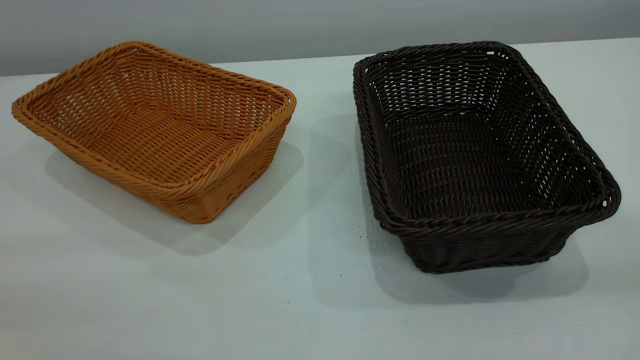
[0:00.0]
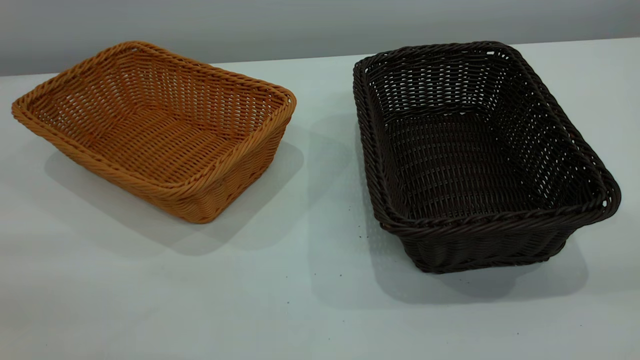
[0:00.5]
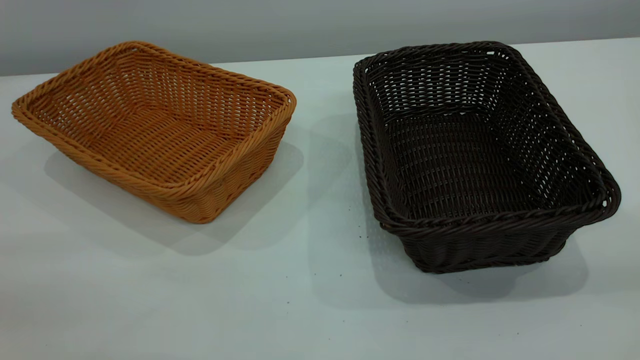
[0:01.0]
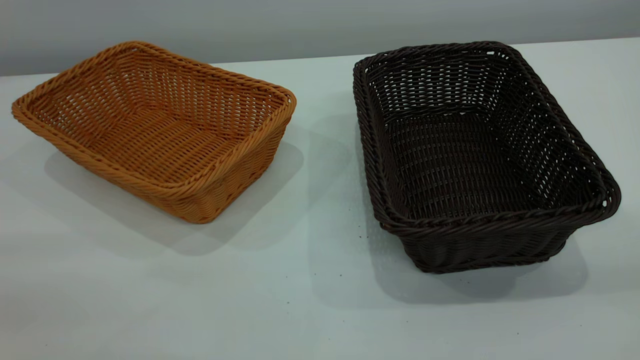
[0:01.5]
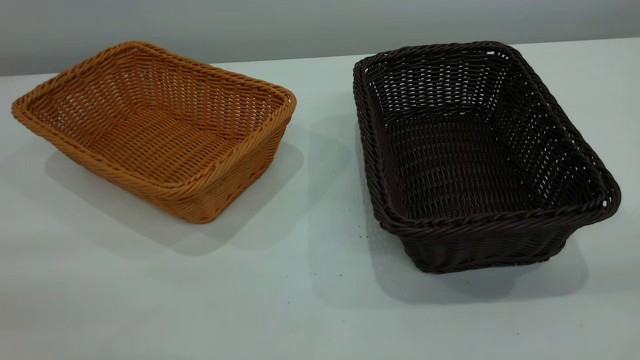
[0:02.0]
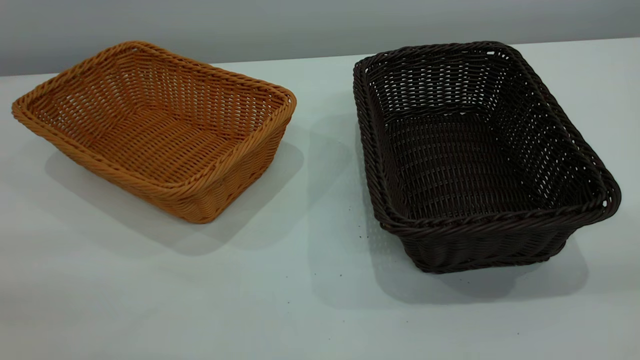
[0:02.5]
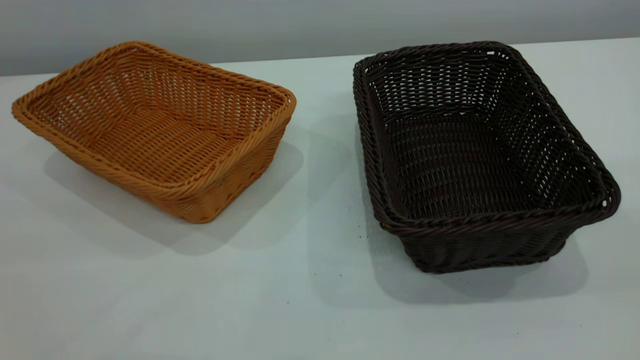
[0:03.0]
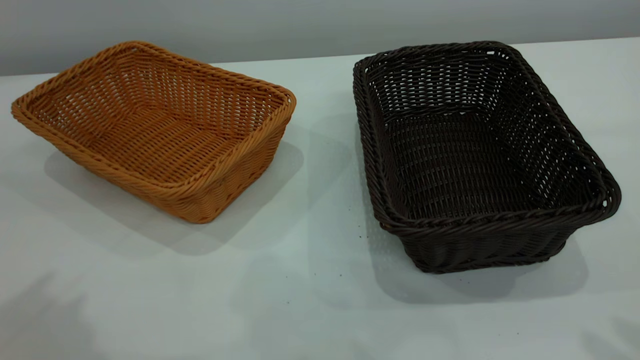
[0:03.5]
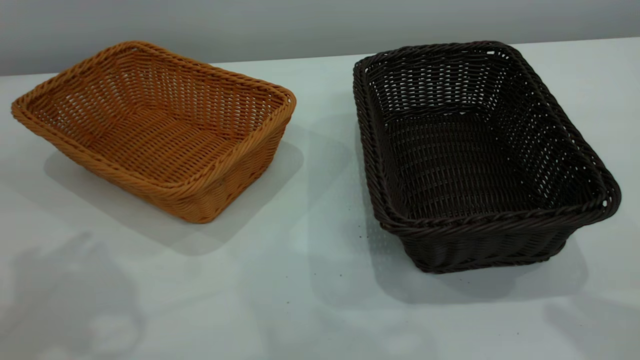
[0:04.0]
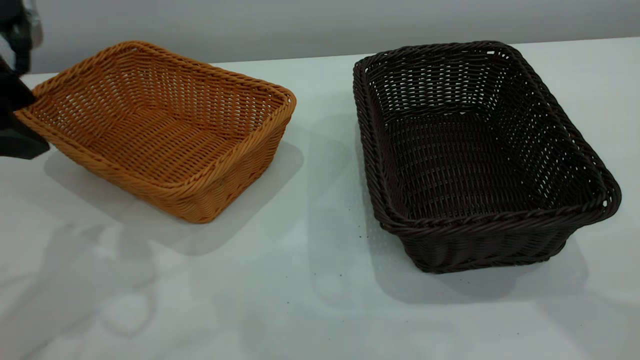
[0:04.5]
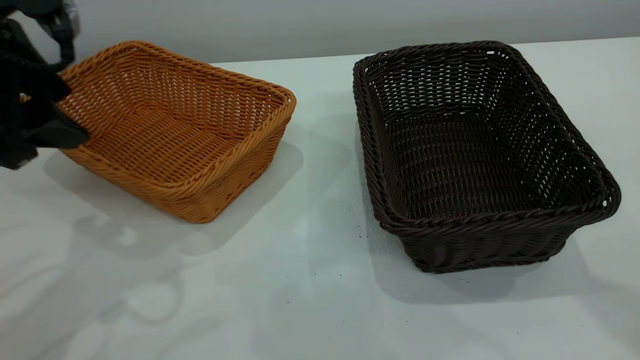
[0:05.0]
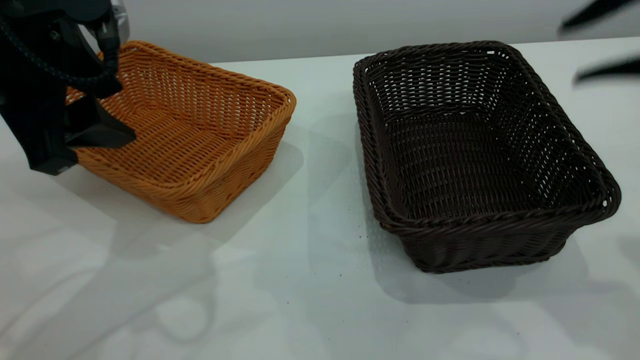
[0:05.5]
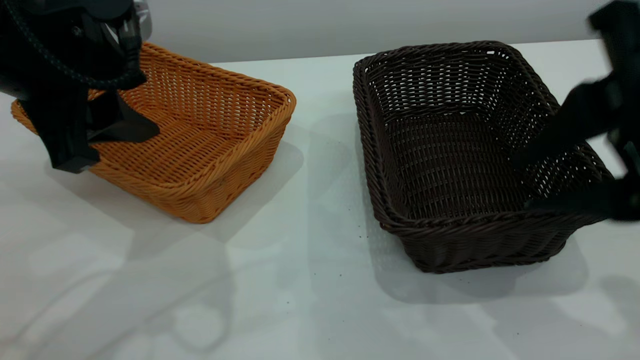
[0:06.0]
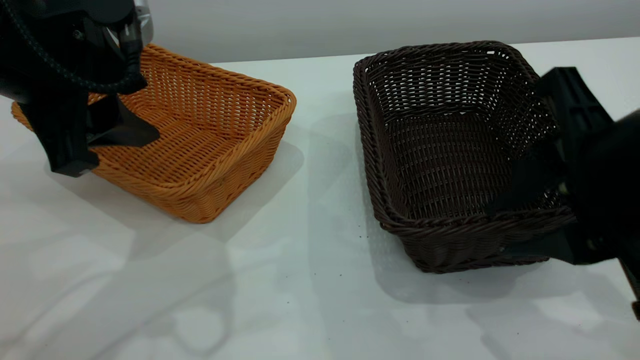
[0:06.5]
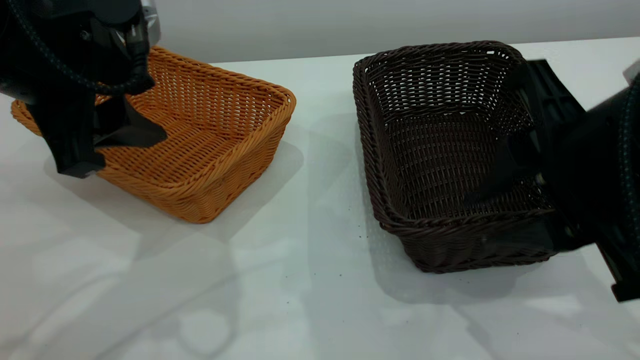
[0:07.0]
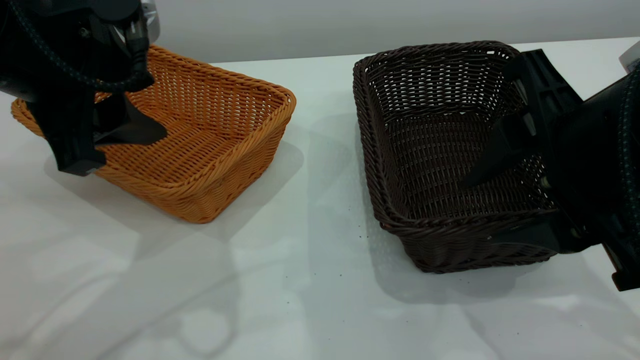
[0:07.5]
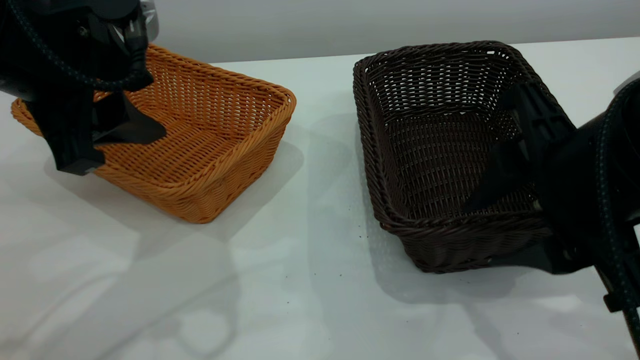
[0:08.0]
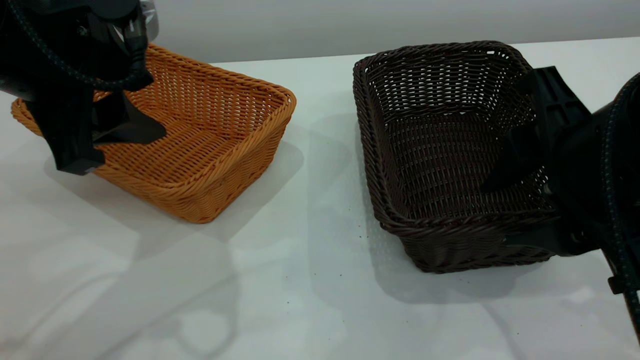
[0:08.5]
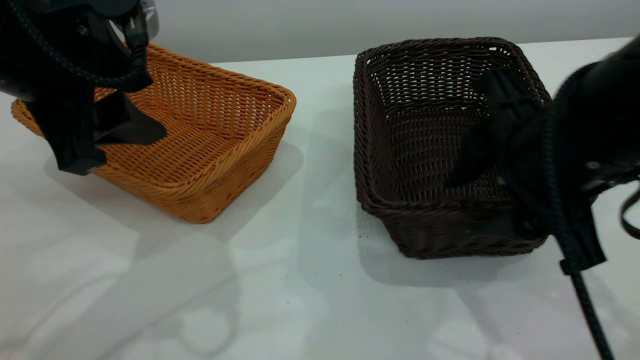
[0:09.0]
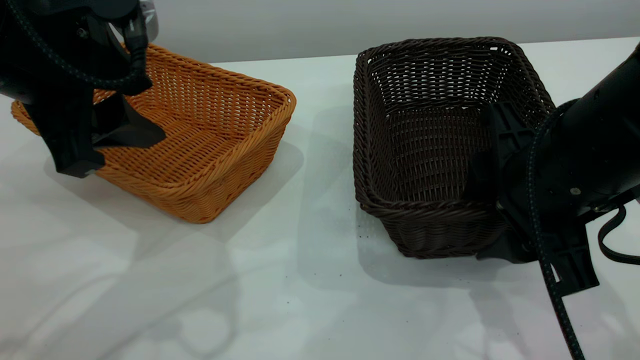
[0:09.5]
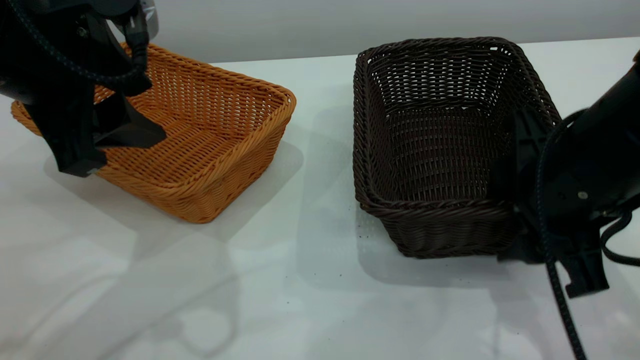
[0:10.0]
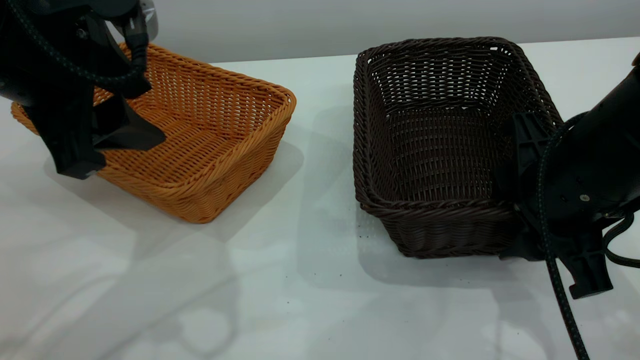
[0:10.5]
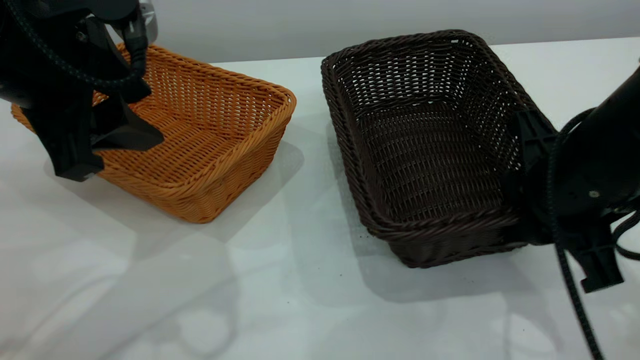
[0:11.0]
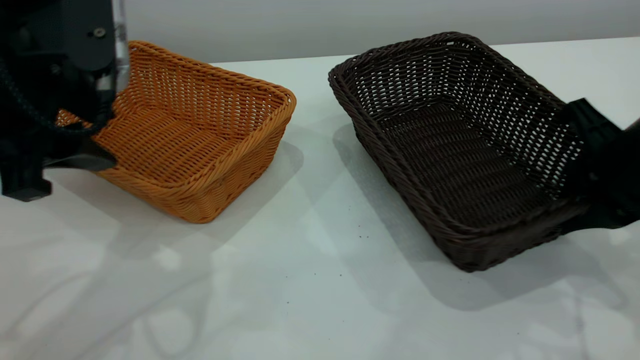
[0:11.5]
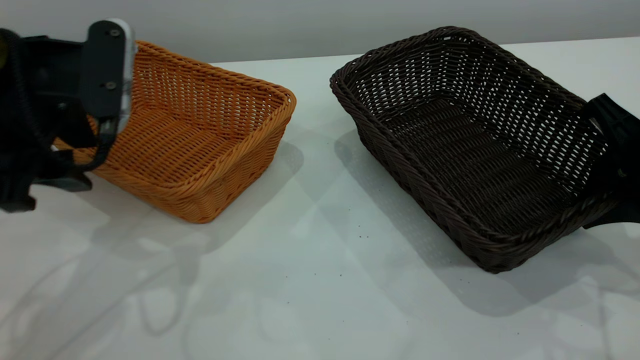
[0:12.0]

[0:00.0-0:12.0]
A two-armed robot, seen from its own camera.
Task of the whole recording: the left gripper grasp the brown basket and place it in the center of the table, the right gripper grasp the black basket and place it inside the brown one.
0:00.0 to 0:02.0: Both grippers stay put.
0:04.0 to 0:06.0: The left gripper travels to the right and downward by approximately 10 cm. The right gripper moves downward and to the left, some 15 cm.
0:06.0 to 0:08.0: The grippers stay close to where they were, moving slightly.
0:08.0 to 0:10.0: The right gripper changes place by about 5 cm.
0:10.0 to 0:12.0: The right gripper is displaced to the right by about 10 cm, and closes up. Meanwhile the left gripper moves roughly 5 cm.

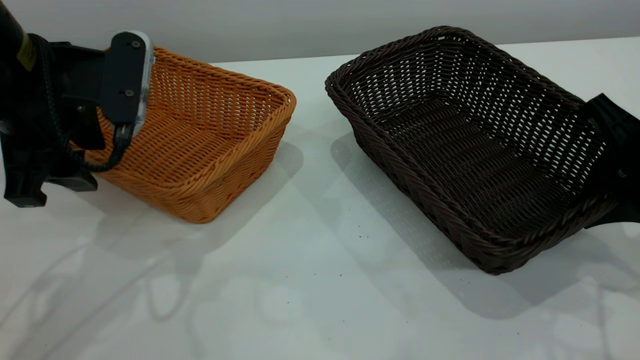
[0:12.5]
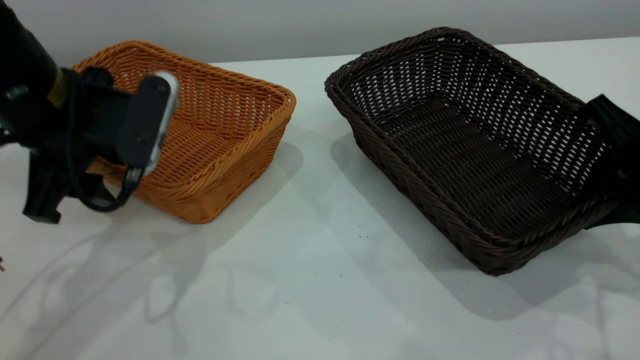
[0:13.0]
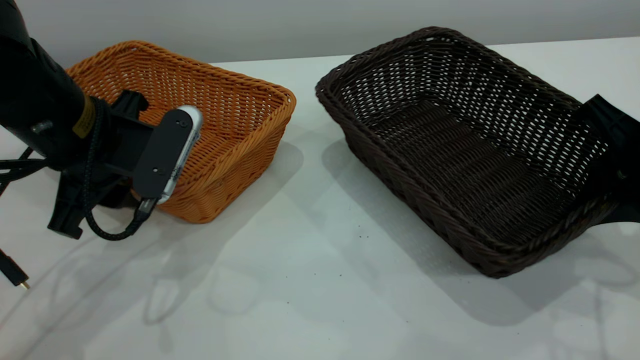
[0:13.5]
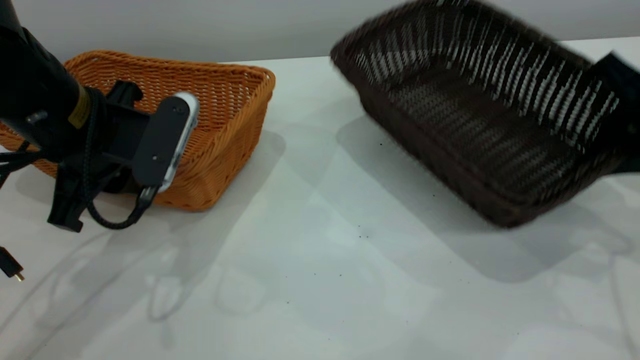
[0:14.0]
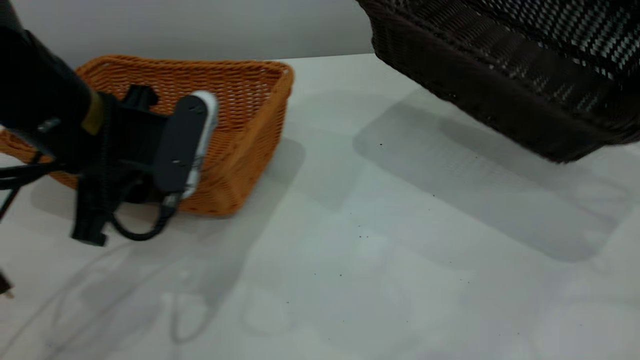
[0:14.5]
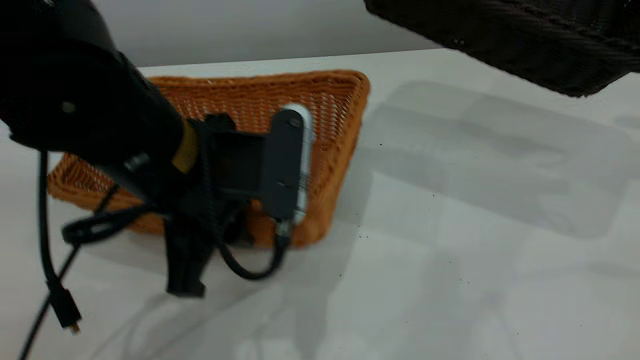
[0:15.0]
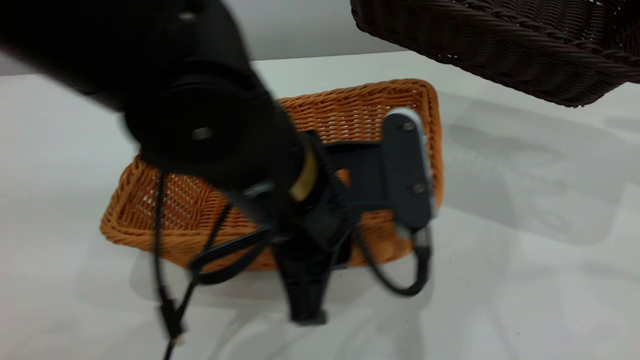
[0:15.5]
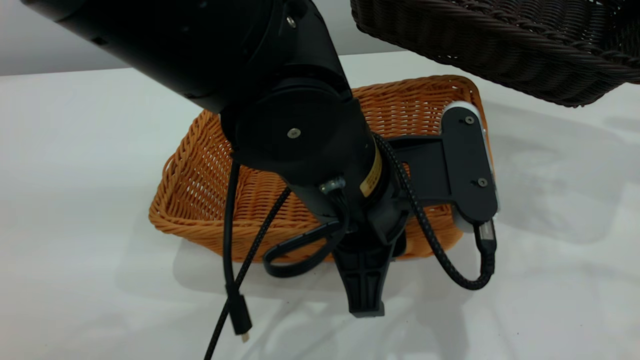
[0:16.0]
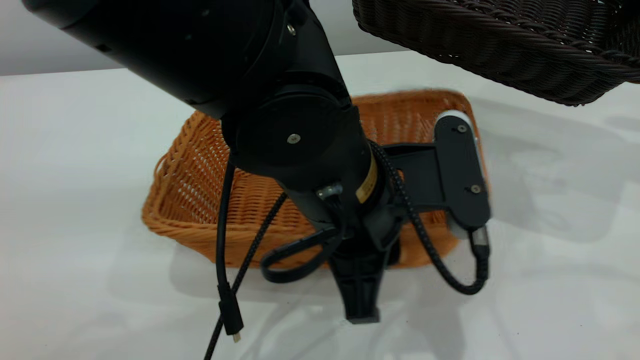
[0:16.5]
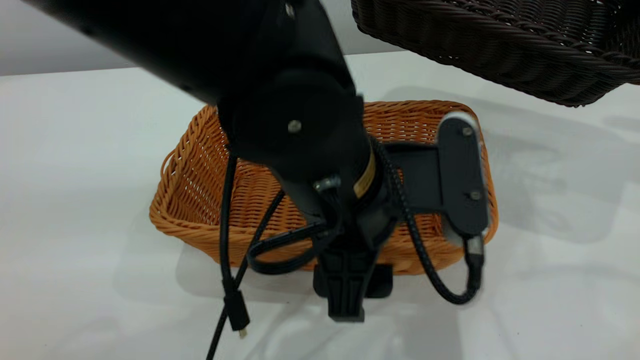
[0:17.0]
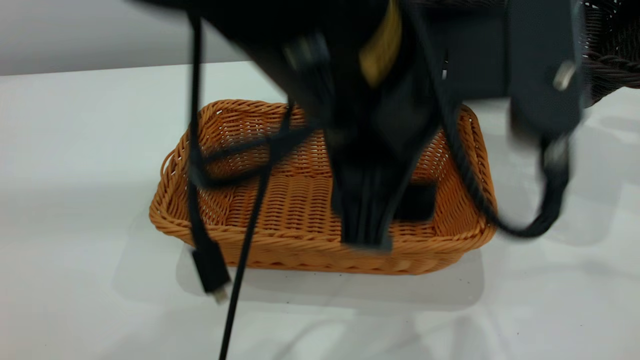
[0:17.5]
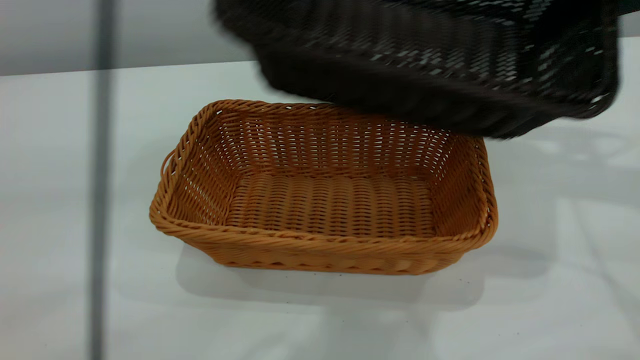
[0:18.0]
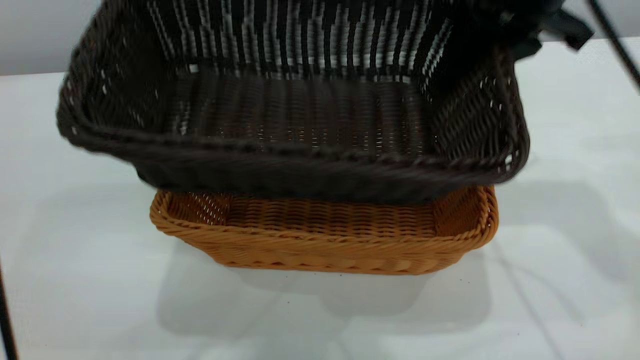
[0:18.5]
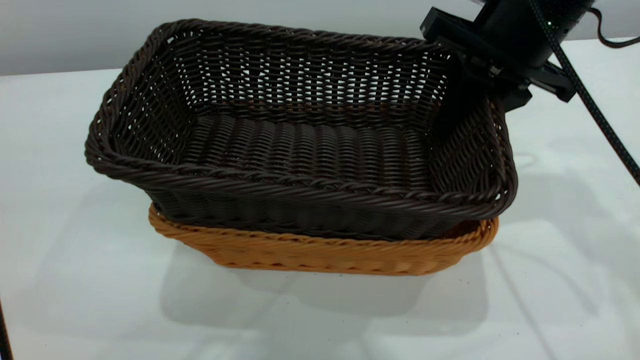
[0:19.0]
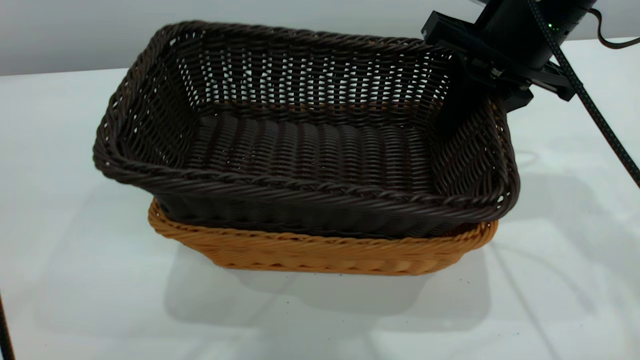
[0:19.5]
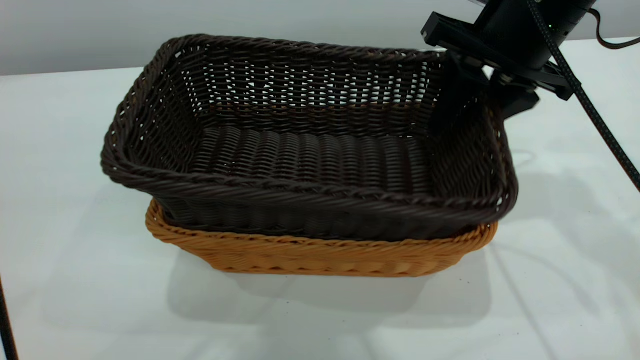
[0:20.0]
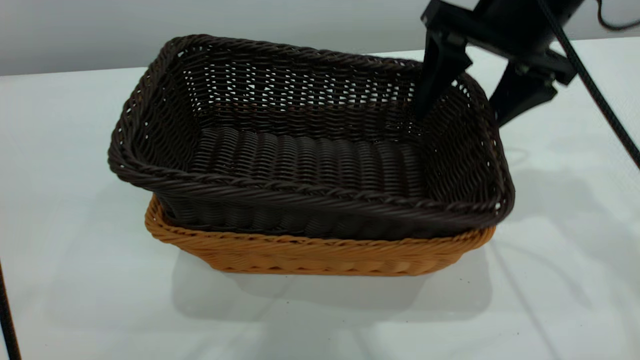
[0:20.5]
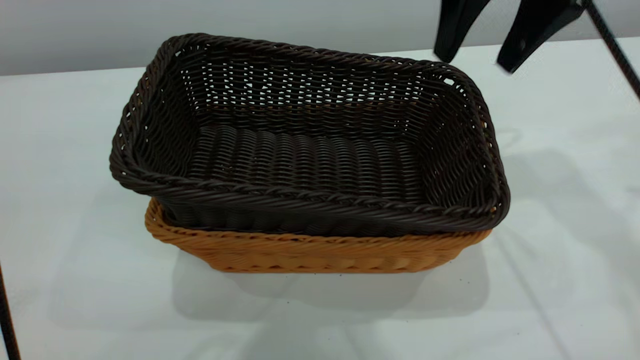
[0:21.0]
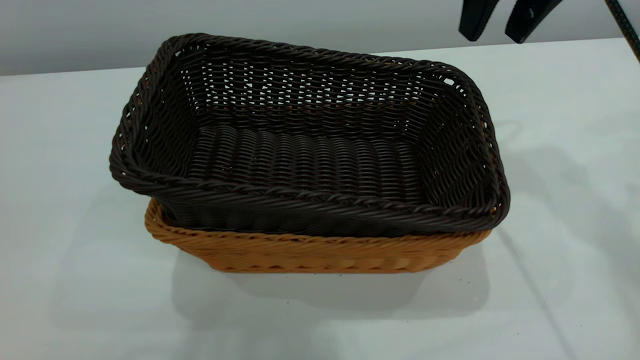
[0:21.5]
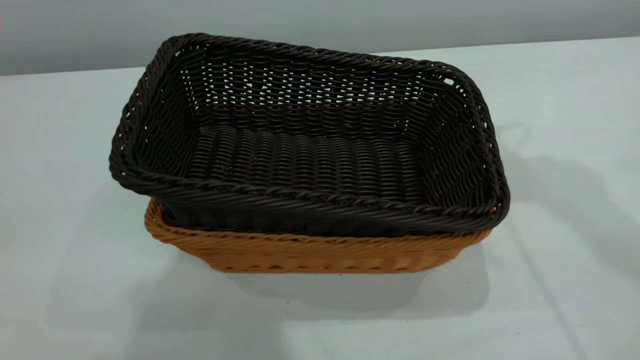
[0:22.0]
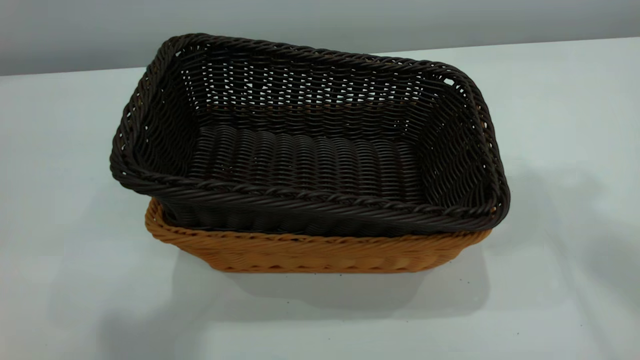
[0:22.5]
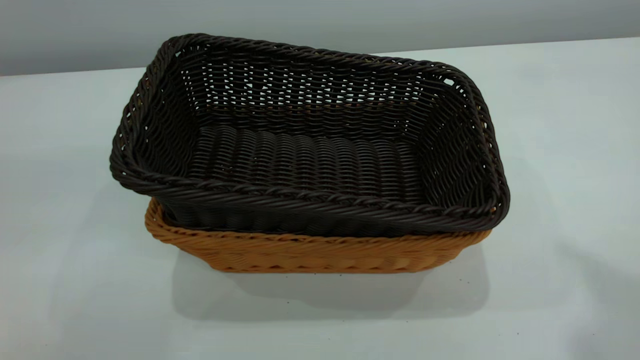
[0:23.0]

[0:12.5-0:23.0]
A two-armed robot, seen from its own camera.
Task of the whole recording: the left gripper grasp the brown basket and place it in the center of the table, the right gripper grasp the black basket and place it inside the brown one.
Step, 0:14.5 to 0:17.0: Place the light-colored basket in the center.
Step, 0:17.5 to 0:21.0: Place the dark basket on top of the light basket.
0:12.5 to 0:14.5: The right gripper shifts some 15 cm forward, upward and to the right. The left gripper moves roughly 5 cm, and closes its fingers.
0:14.5 to 0:16.5: The right gripper heads upward, covering approximately 5 cm. The left gripper heads to the right, covering approximately 20 cm.
0:16.5 to 0:19.0: The right gripper moves to the left, roughly 15 cm. Meanwhile the left gripper travels upward by roughly 30 cm, and opens up.
0:19.0 to 0:21.0: The right gripper moves upward, approximately 5 cm, and opens its fingers.
0:21.0 to 0:23.0: The right gripper goes some 35 cm upward and backward, and closes its fingers; the left gripper shifts roughly 15 cm to the left and backward, and closes up.
